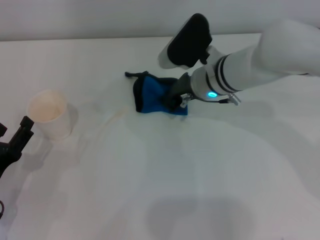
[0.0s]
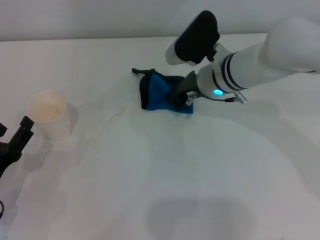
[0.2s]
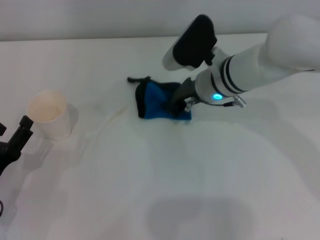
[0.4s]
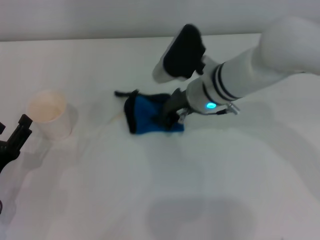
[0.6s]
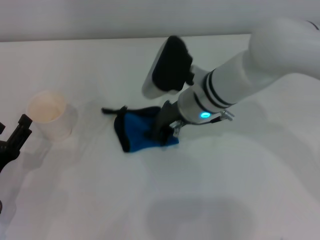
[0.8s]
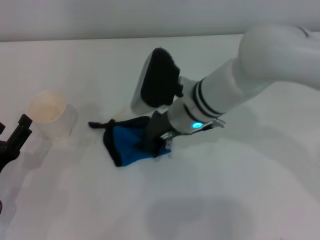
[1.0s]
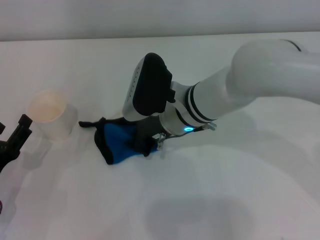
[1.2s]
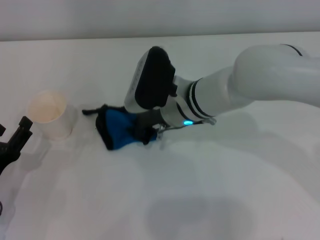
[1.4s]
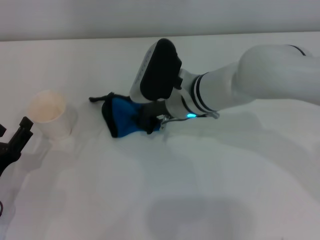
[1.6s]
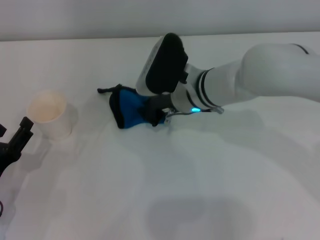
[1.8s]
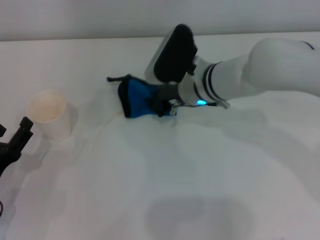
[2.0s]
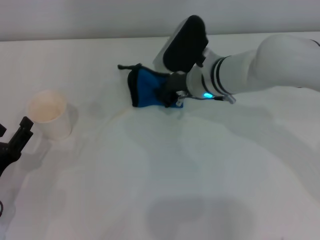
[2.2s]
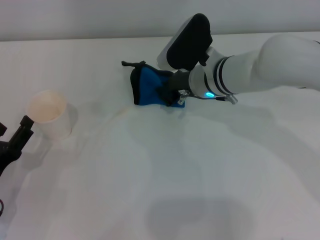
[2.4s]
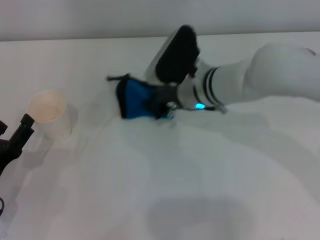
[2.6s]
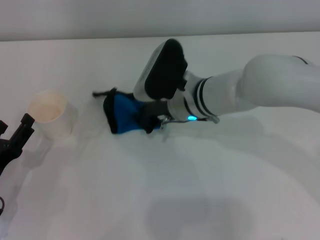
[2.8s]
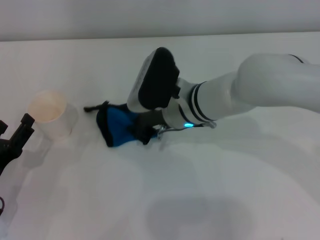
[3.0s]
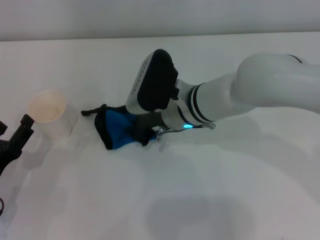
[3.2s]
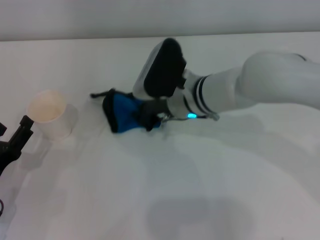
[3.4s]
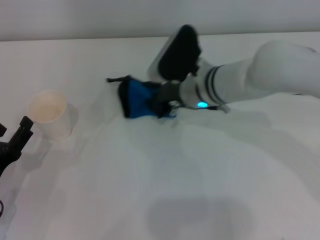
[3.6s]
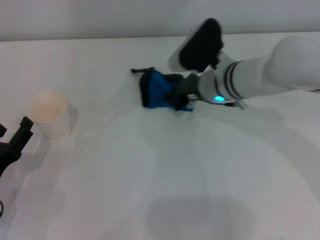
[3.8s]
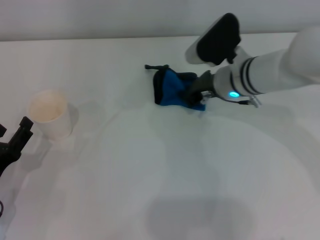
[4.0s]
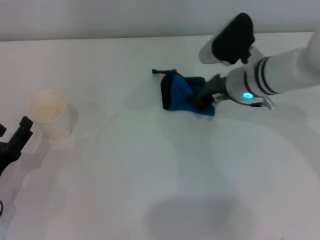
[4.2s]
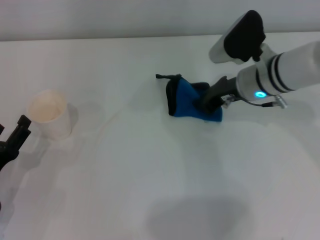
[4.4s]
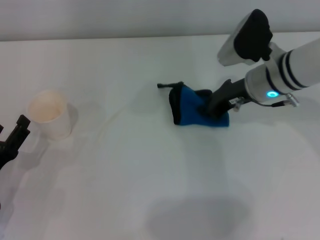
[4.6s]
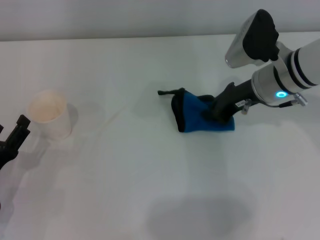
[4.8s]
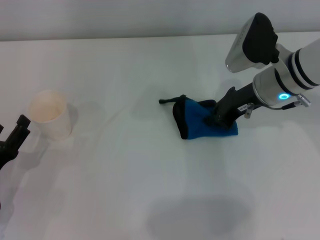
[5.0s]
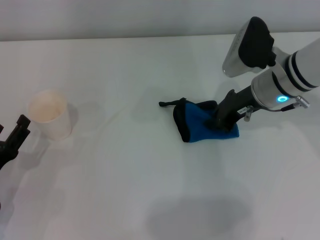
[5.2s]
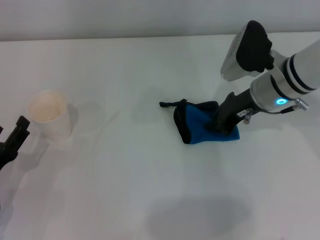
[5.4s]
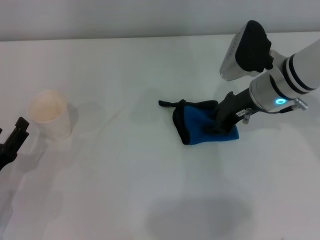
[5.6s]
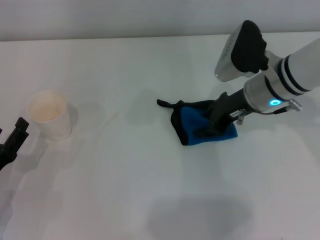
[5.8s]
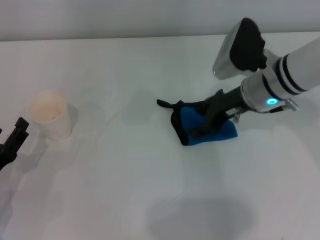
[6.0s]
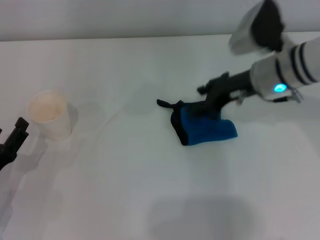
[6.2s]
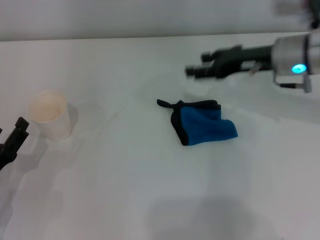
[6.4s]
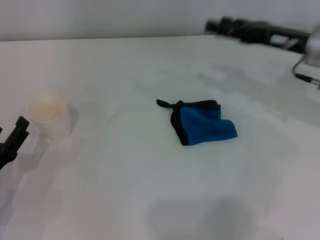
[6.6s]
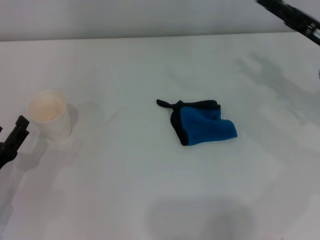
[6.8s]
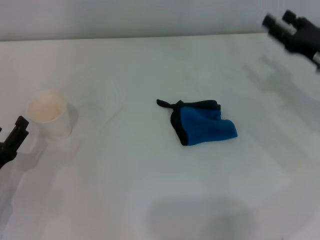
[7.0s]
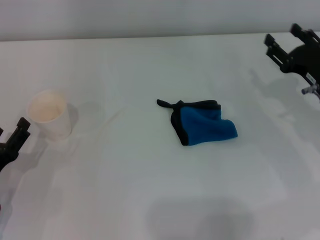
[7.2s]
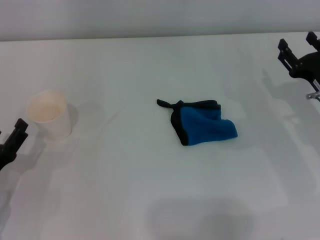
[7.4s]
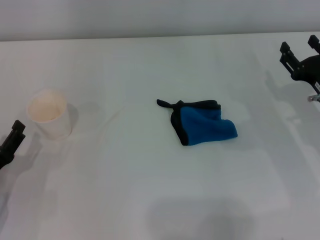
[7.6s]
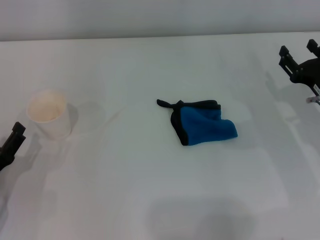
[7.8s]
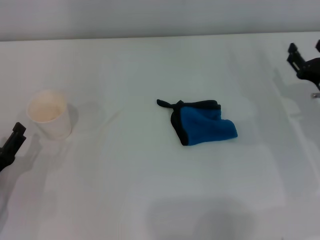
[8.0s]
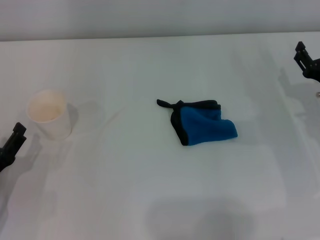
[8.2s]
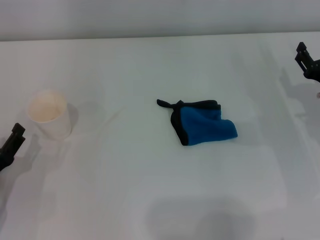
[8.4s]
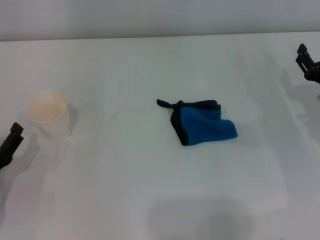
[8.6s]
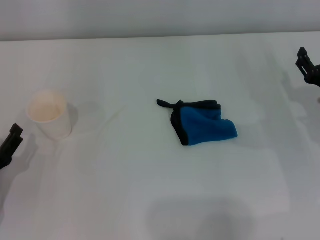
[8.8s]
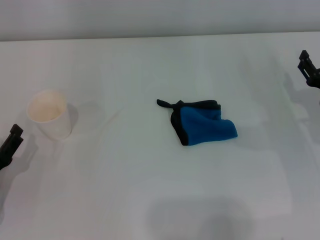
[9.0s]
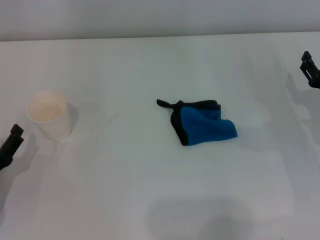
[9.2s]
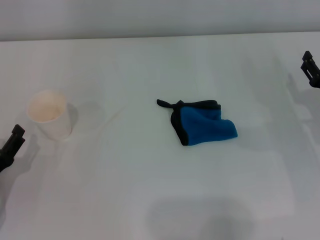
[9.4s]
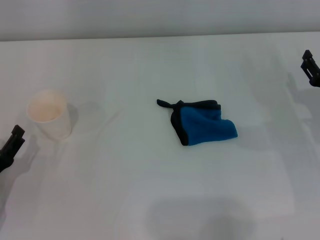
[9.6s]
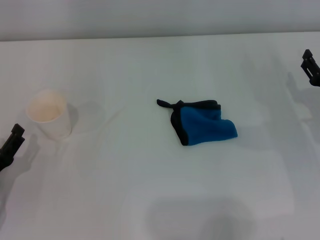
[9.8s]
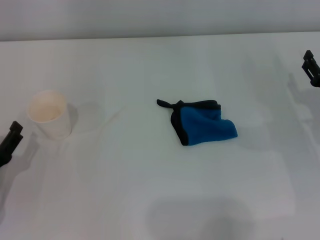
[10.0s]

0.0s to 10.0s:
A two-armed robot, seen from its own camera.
Step, 0.0s to 4.6s: Wipe the stains off the table with the right gripper.
Step, 4.8s to 5.4s: Place the rag on the table with the right gripper.
0.0s to 1.4s: The right gripper heads to the left, covering roughly 5 cm.
2.8s to 4.2s: The right gripper heads to the right, covering roughly 10 cm.
4.2s to 5.8s: The grippers move only a little.
5.8s to 7.2s: The right gripper heads to the right, backward and downward, covering about 15 cm, and opens its fingers.
7.2s to 8.6s: The grippers stay close to where they were, moving slightly.
8.6s to 10.0s: Neither gripper changes place.

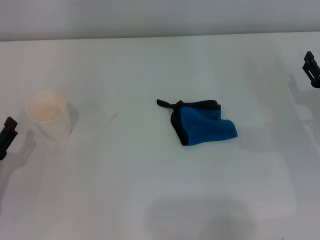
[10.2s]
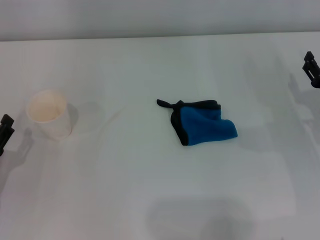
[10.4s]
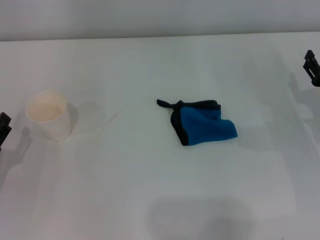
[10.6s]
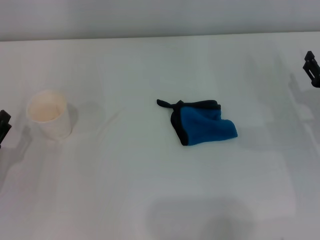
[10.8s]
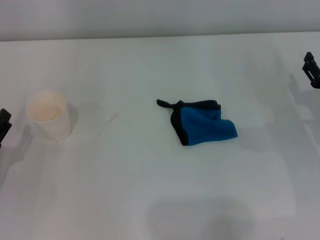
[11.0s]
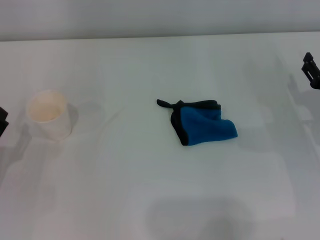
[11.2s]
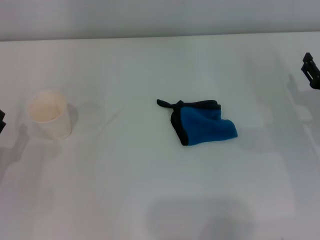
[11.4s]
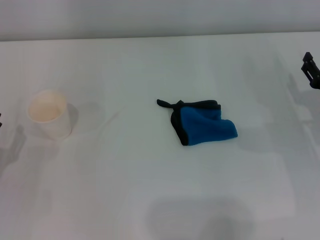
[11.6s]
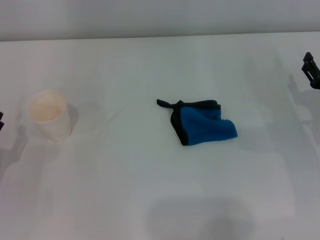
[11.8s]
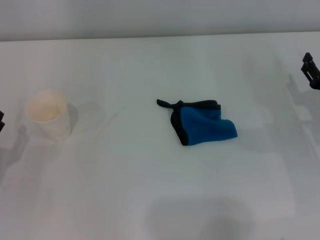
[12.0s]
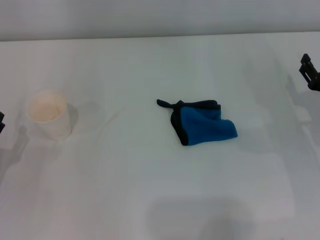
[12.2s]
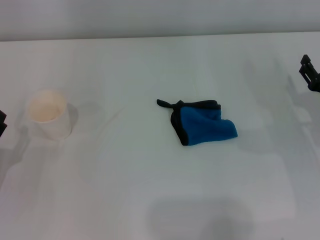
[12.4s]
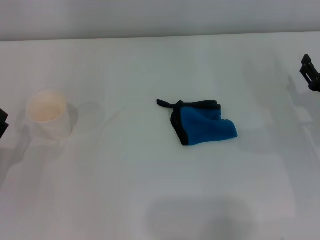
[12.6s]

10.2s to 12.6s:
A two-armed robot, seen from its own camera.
10.2s to 11.4s: Both grippers stay about where they are.
11.4s to 12.6s: Both grippers stay about where they are.
